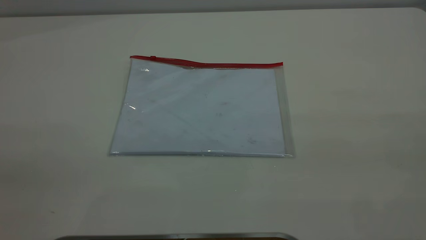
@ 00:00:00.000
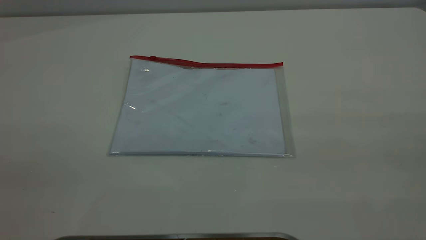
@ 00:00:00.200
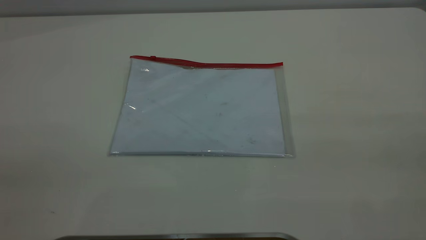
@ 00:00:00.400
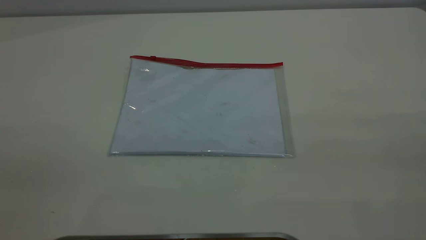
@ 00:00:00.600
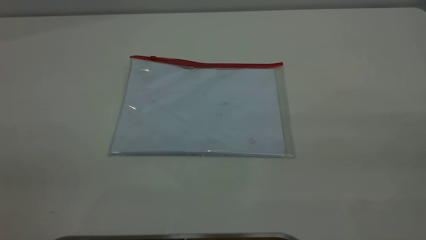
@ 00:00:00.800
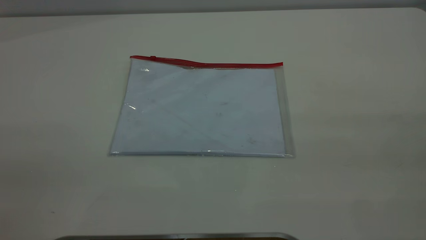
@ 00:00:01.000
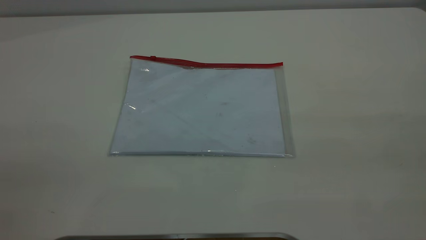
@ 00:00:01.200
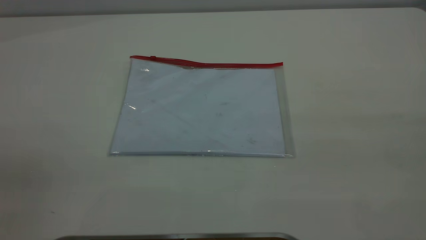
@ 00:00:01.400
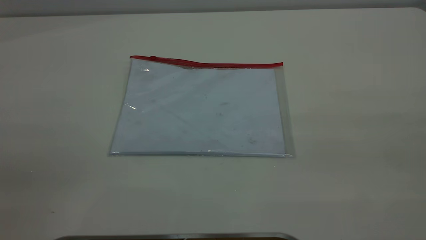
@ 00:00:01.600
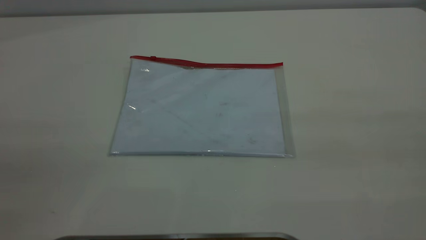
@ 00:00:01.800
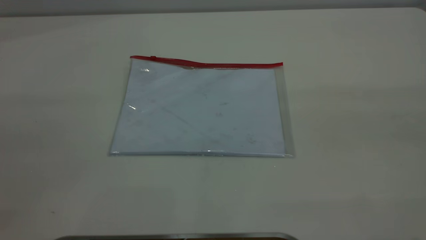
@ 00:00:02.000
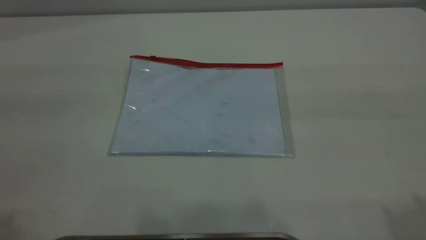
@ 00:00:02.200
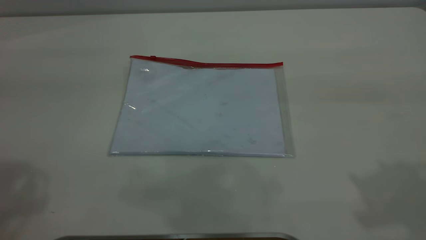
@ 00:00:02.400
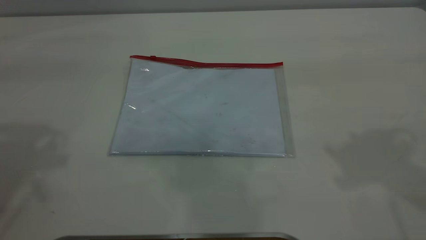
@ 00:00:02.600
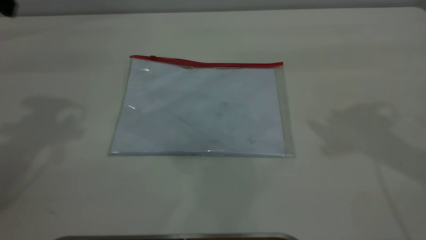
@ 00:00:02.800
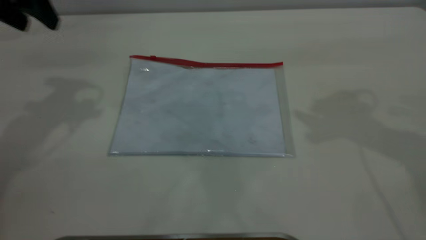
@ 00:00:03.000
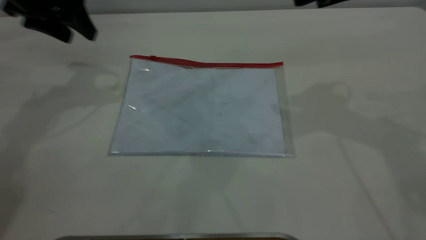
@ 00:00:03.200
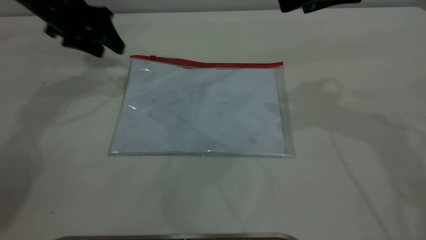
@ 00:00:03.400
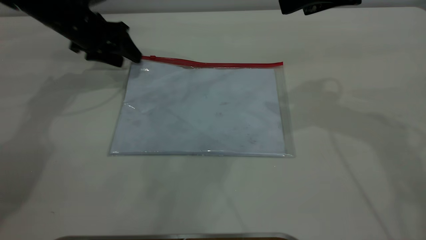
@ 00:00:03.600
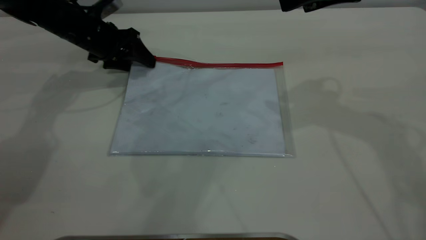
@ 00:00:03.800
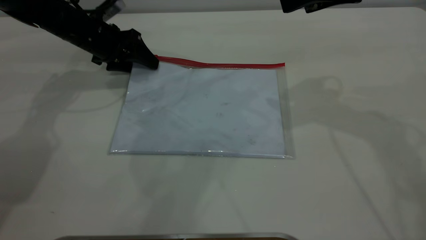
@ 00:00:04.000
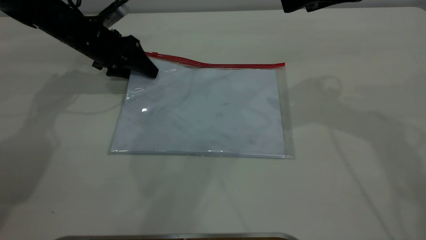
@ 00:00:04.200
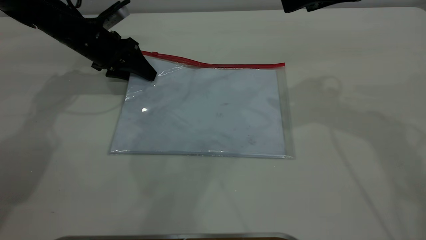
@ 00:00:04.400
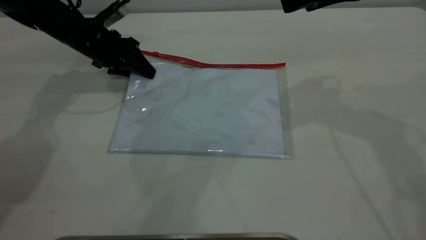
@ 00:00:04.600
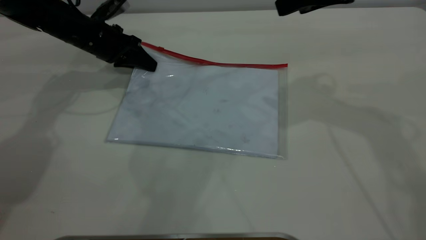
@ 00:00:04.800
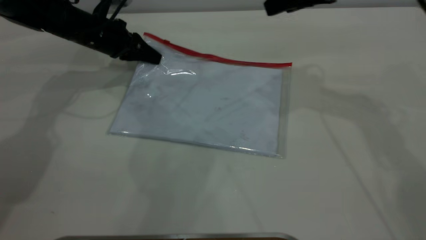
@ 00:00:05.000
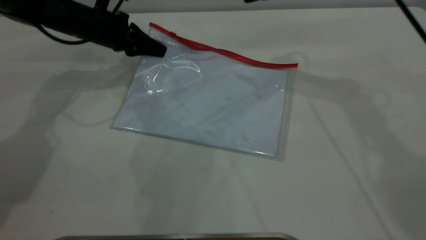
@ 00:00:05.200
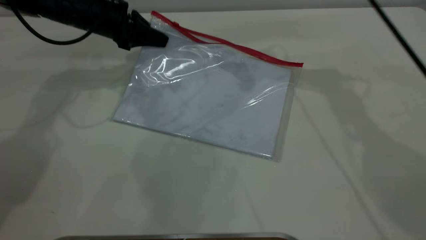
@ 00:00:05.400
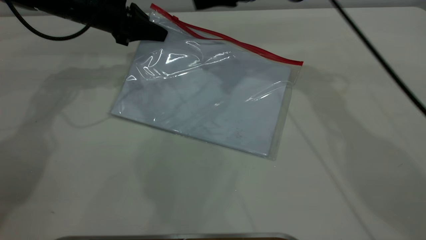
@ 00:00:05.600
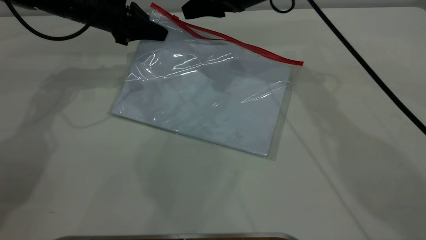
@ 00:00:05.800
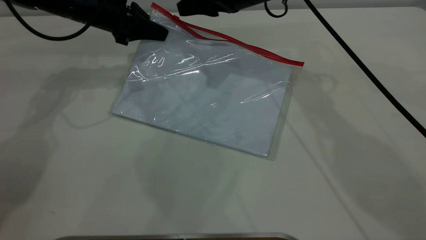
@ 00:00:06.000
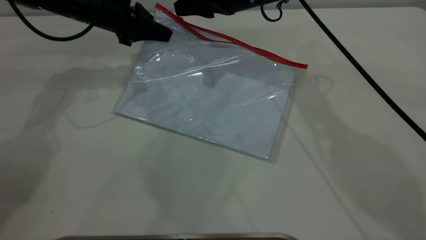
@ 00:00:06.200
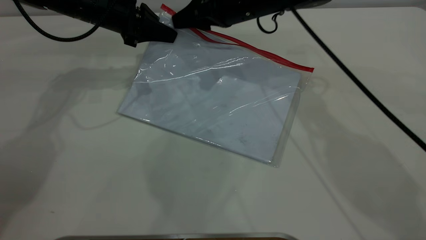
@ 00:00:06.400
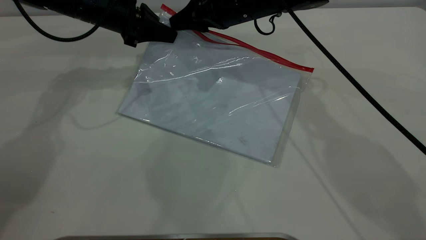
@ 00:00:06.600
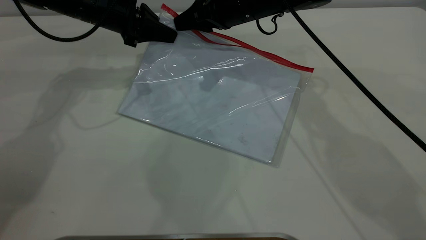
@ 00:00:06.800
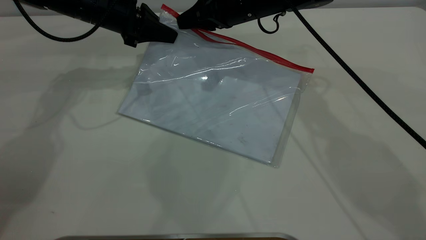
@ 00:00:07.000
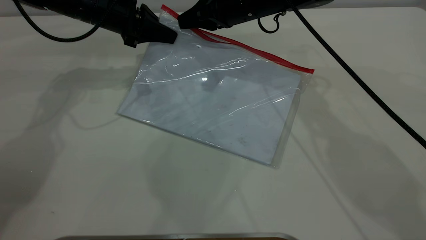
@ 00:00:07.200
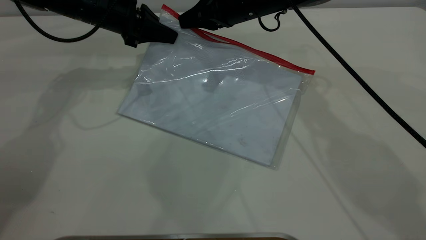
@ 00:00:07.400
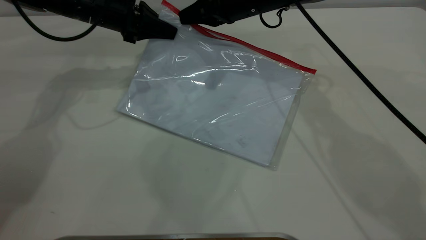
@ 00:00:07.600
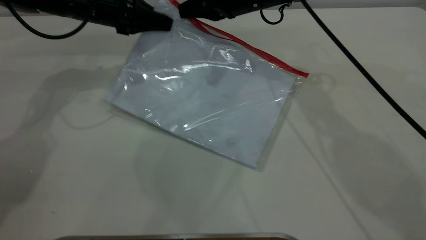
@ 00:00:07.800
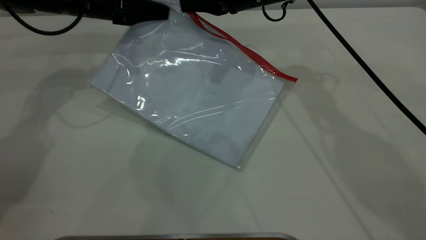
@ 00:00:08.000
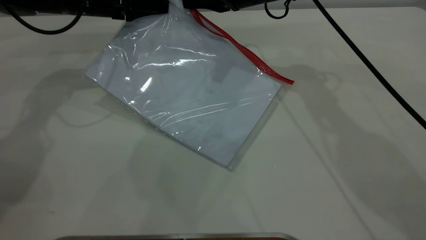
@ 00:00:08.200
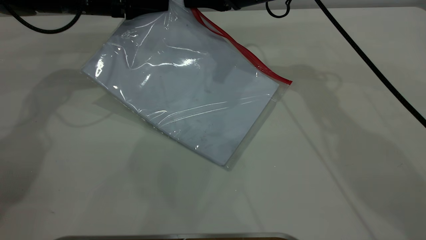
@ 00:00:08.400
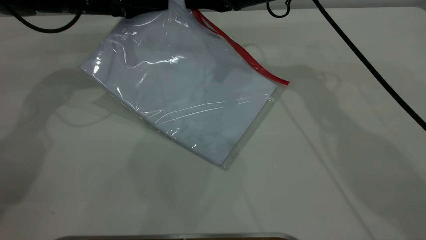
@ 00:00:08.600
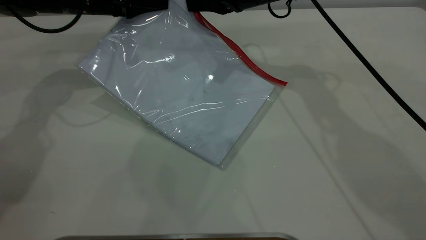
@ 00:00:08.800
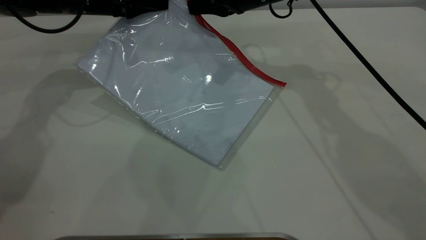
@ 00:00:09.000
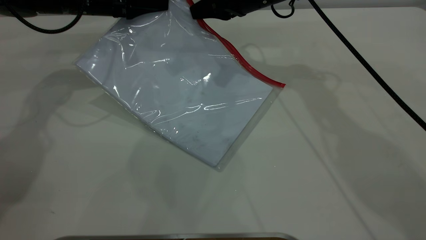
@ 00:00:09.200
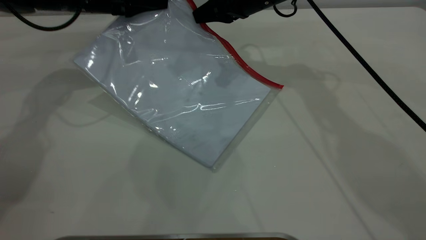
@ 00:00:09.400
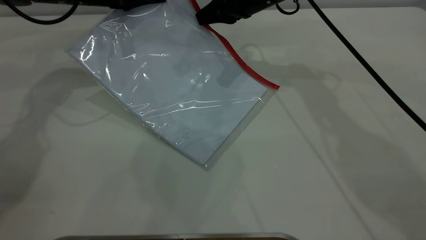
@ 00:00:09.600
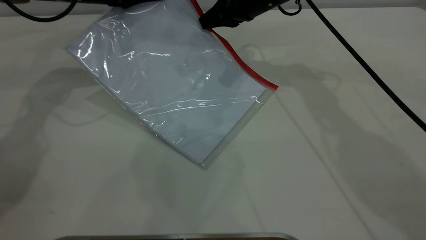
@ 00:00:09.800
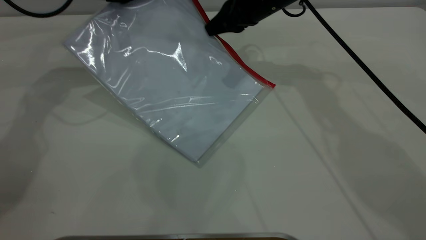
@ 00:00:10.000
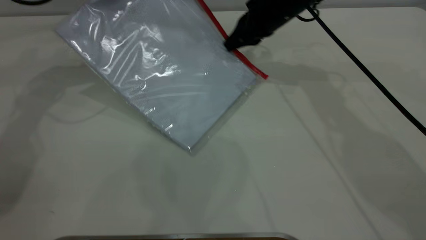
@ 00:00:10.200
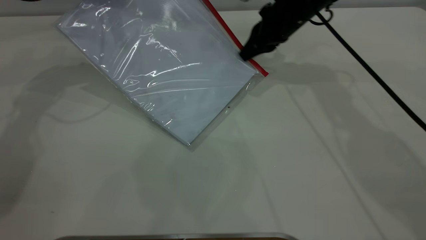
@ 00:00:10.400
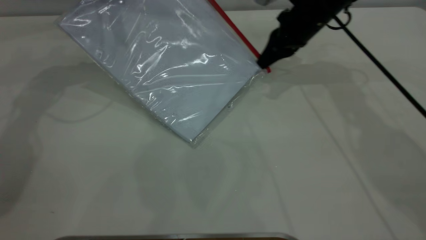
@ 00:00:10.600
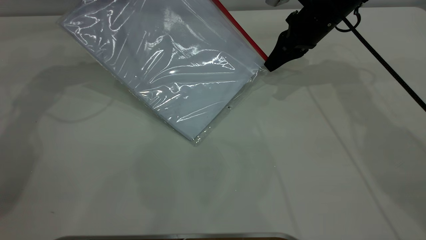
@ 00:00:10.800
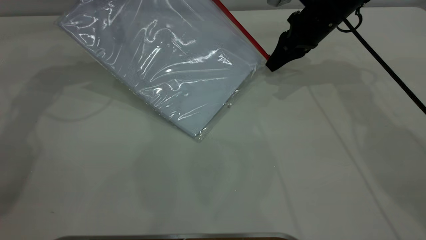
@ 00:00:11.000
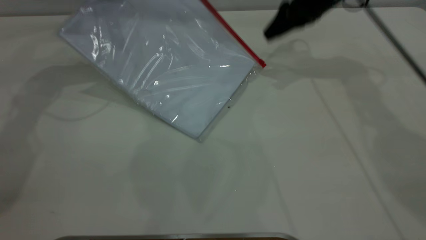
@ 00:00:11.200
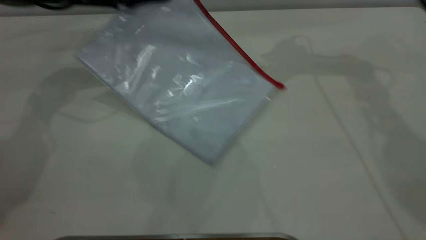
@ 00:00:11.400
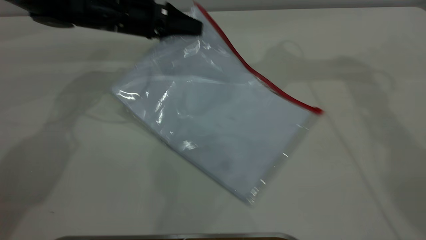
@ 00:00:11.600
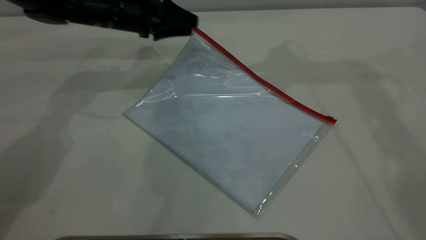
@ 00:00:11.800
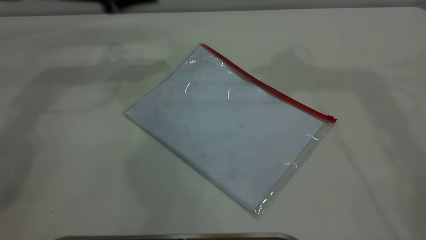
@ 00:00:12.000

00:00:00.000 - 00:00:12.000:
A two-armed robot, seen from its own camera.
Step, 00:00:00.000 - 00:00:05.200: Pick up the transparent plastic bag with the left gripper.
Step, 00:00:05.400 - 00:00:11.000: Pulling up the zipper on the transparent plastic bag with the right gripper to close it.
Step, 00:00:11.400 - 00:00:11.800: Place the transparent plastic bag.
00:00:00.000 - 00:00:01.600: Both grippers stay put.
00:00:01.600 - 00:00:03.000: The left gripper is displaced forward by about 40 cm.
00:00:03.000 - 00:00:04.400: The left gripper travels downward and forward by about 20 cm; the right gripper changes place by some 5 cm.
00:00:04.400 - 00:00:06.000: The right gripper is displaced to the left, forward and downward by some 20 cm. The left gripper moves approximately 5 cm, and closes.
00:00:06.000 - 00:00:07.600: The right gripper closes its fingers.
00:00:07.600 - 00:00:09.000: The grippers move only a little.
00:00:09.000 - 00:00:10.400: The left gripper goes roughly 5 cm upward. The right gripper heads to the right, covering roughly 5 cm.
00:00:10.400 - 00:00:12.000: The left gripper reaches approximately 5 cm to the right, then returns, and opens up; the right gripper is displaced upward by some 30 cm, and opens.
